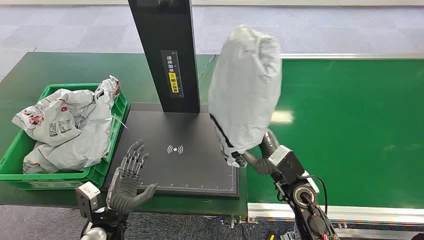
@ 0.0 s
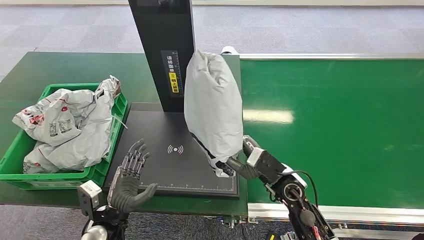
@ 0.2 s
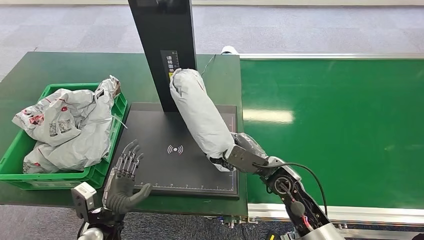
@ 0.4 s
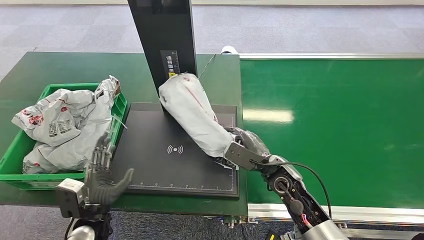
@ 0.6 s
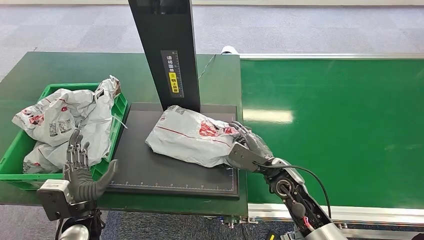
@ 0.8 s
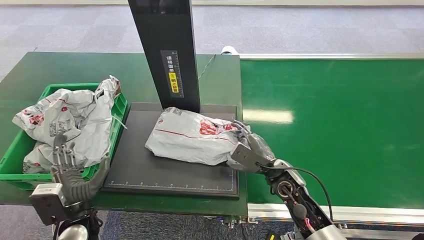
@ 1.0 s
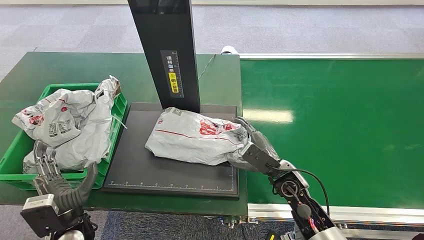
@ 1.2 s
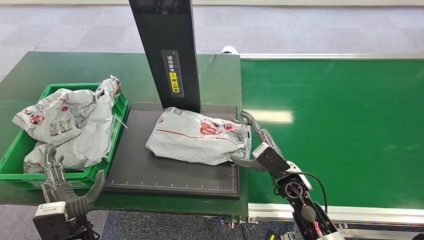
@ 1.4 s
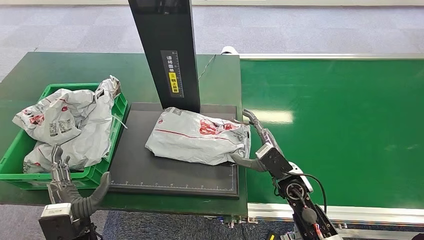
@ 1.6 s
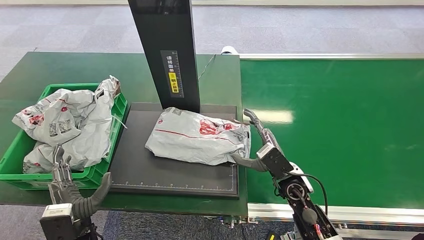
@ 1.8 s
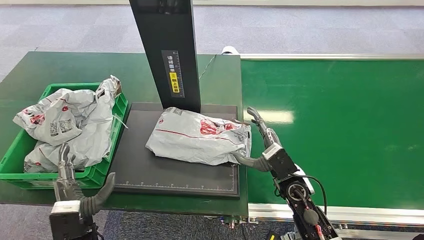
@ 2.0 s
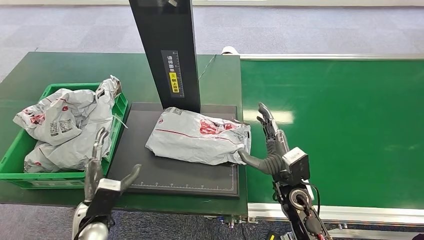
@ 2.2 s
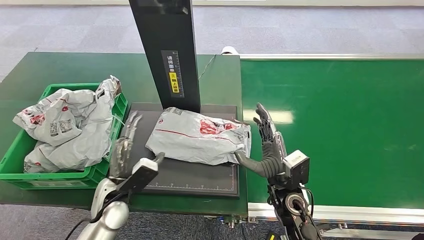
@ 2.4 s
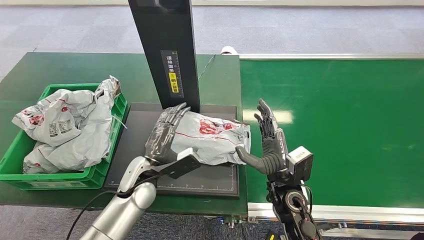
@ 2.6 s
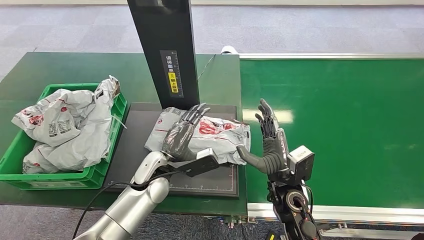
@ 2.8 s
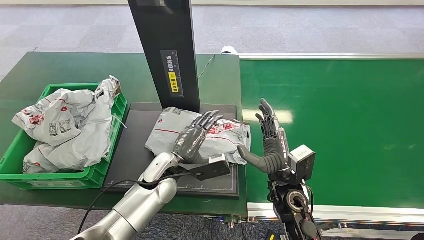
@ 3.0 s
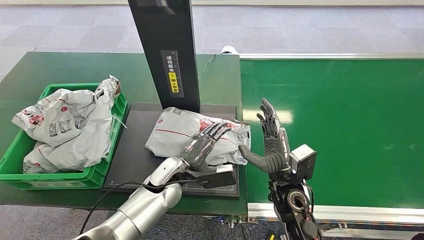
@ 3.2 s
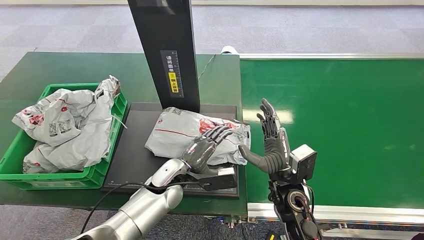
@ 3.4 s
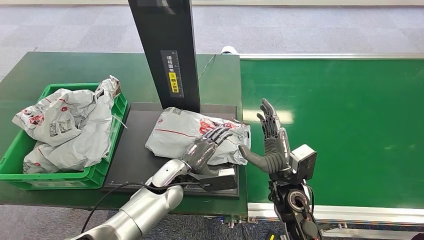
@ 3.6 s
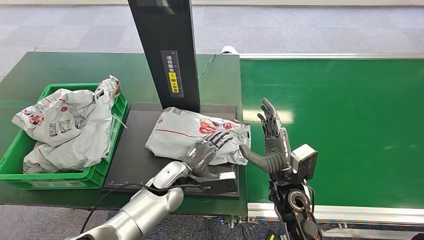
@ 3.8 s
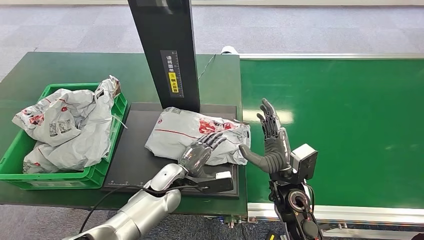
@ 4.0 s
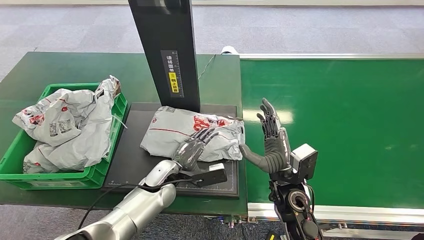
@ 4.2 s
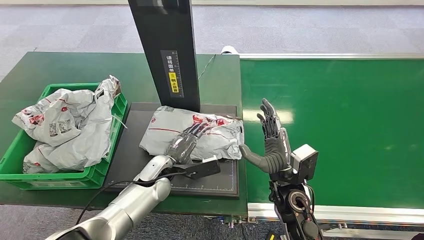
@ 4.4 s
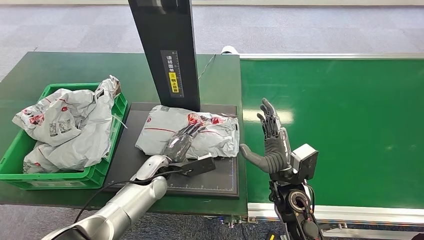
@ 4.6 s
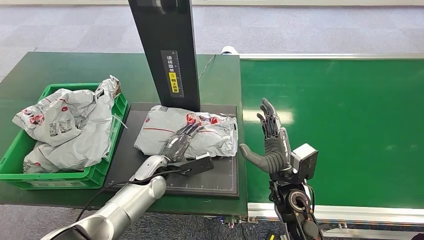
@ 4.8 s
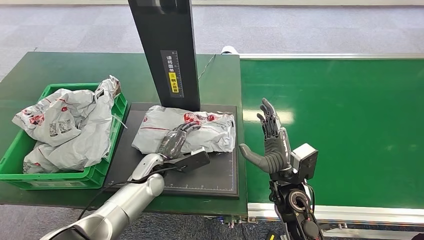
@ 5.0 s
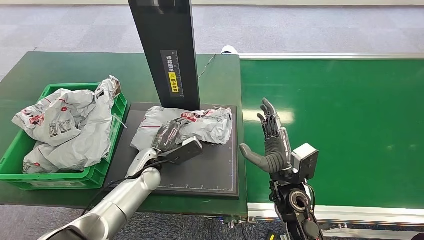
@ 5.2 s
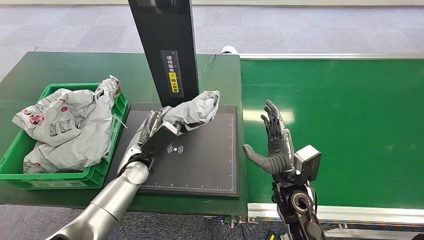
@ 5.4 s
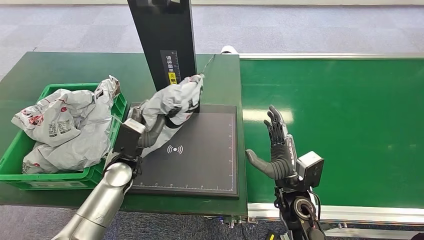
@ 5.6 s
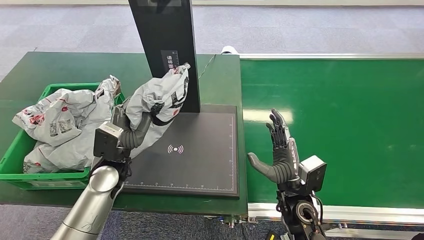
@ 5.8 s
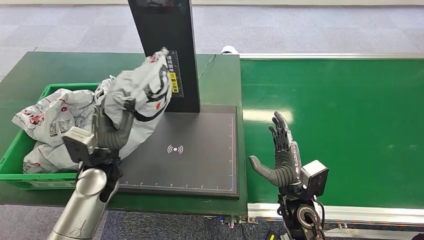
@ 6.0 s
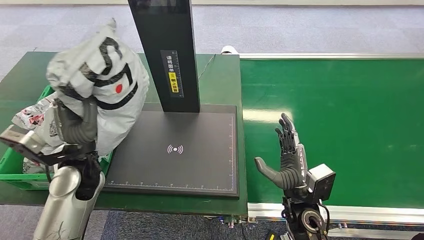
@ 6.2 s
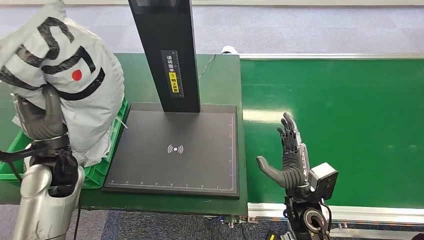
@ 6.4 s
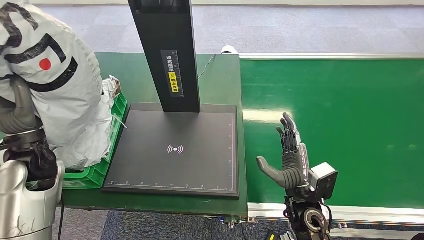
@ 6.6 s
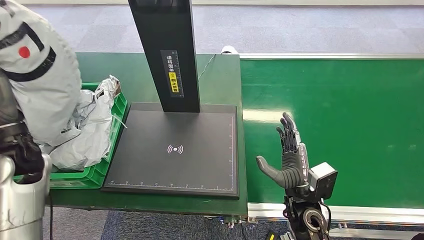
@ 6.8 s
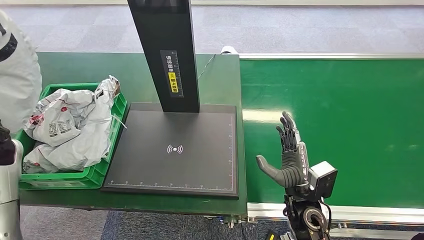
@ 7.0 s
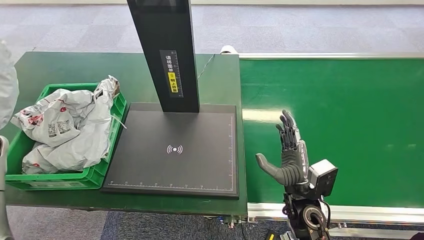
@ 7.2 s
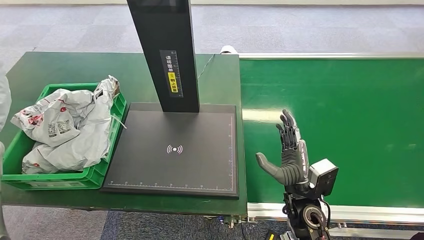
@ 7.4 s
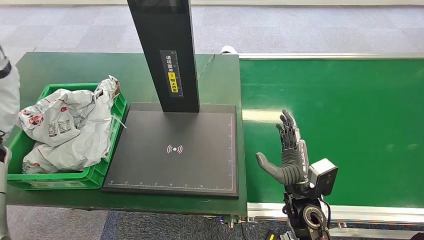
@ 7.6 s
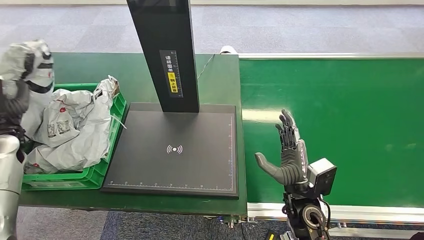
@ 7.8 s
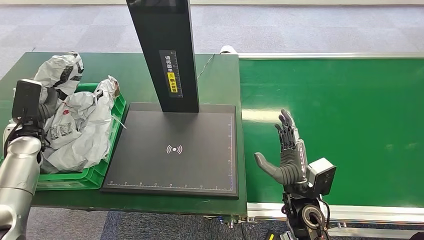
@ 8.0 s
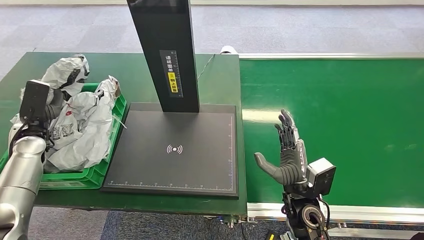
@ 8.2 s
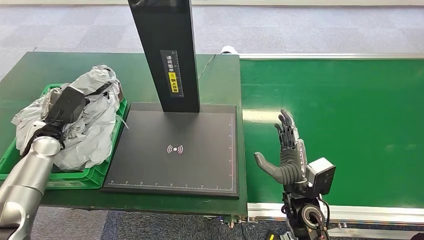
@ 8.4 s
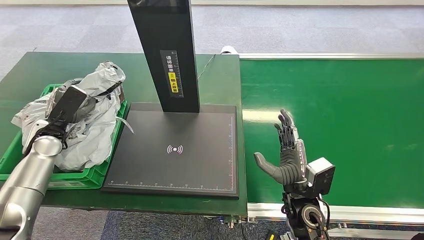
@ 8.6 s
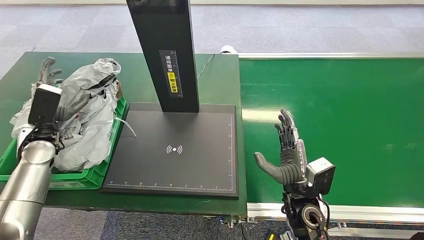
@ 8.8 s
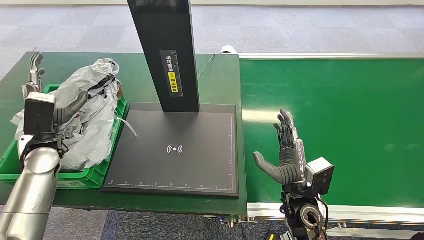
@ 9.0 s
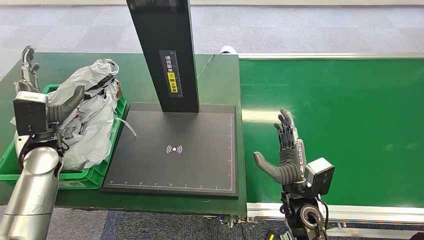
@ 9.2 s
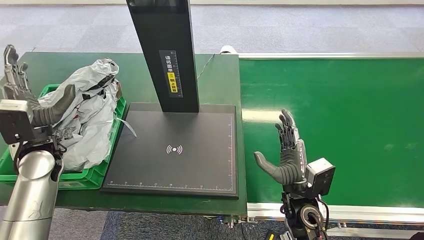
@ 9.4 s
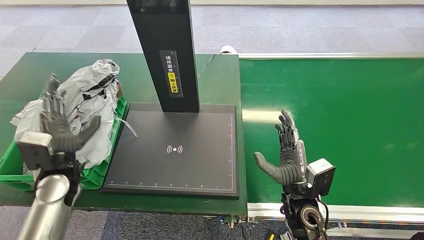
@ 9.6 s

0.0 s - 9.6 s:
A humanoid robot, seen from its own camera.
1.6 s - 3.2 s: The left hand heads to the right and forward, covering some 25 cm.
3.2 s - 4.8 s: The left hand goes some 5 cm to the left.
8.0 s - 9.6 s: The left hand goes some 15 cm to the right and backward.
